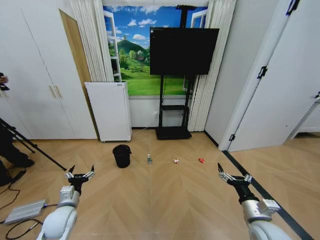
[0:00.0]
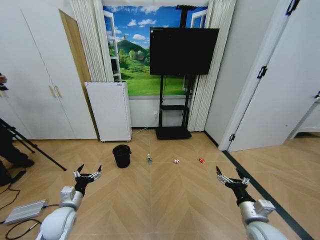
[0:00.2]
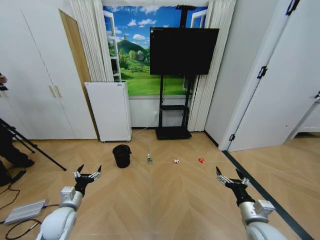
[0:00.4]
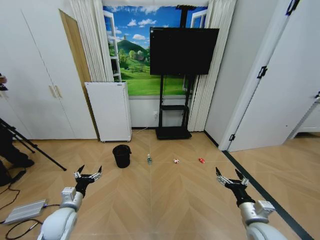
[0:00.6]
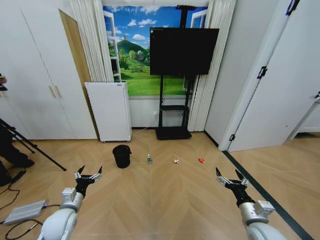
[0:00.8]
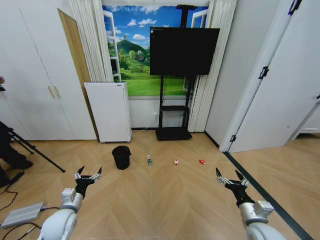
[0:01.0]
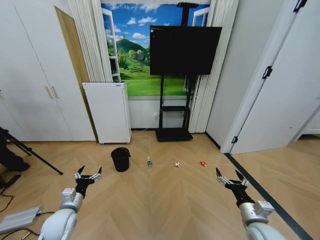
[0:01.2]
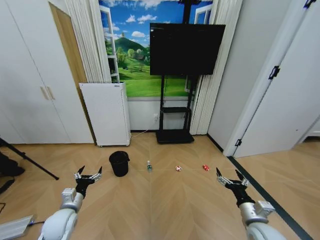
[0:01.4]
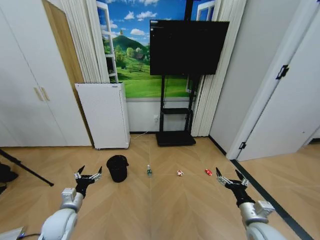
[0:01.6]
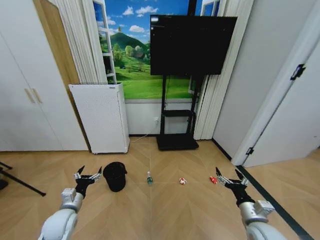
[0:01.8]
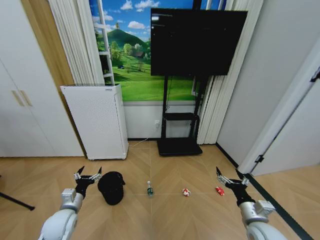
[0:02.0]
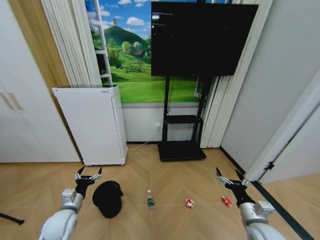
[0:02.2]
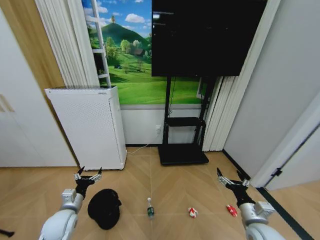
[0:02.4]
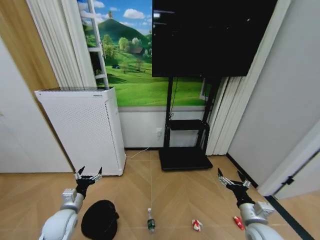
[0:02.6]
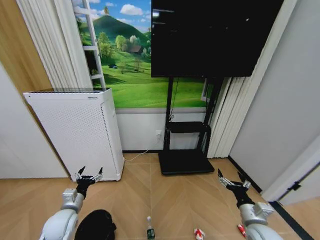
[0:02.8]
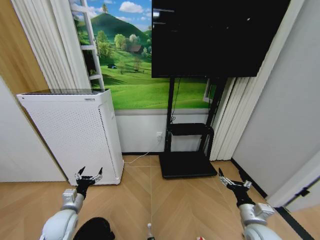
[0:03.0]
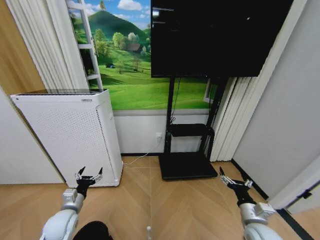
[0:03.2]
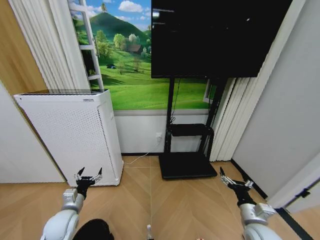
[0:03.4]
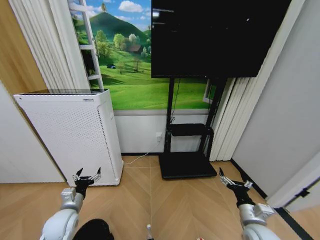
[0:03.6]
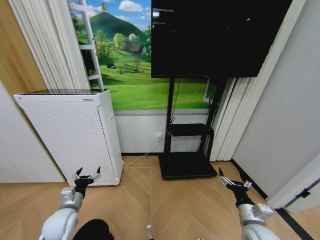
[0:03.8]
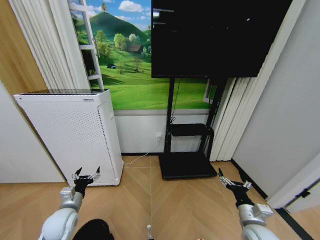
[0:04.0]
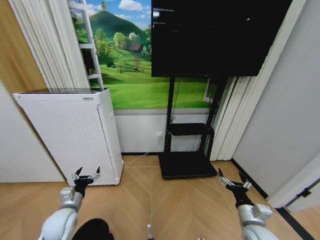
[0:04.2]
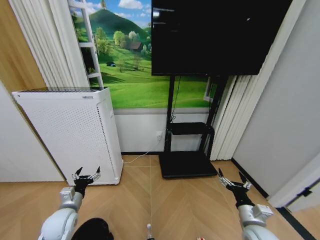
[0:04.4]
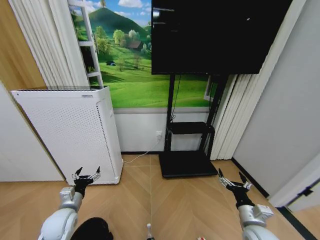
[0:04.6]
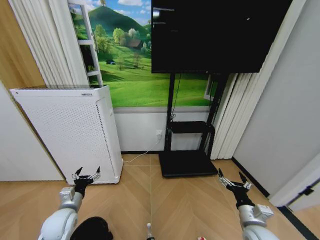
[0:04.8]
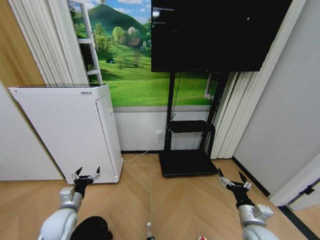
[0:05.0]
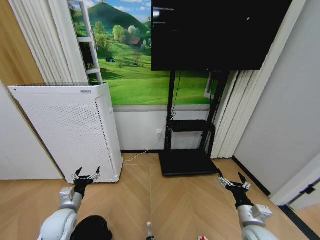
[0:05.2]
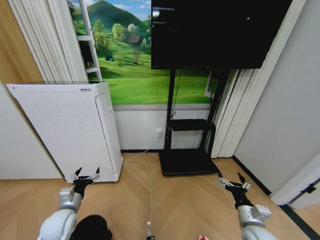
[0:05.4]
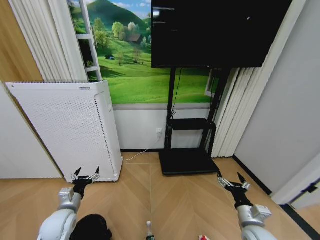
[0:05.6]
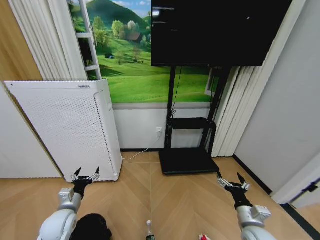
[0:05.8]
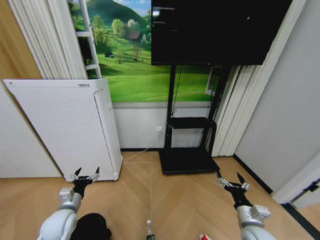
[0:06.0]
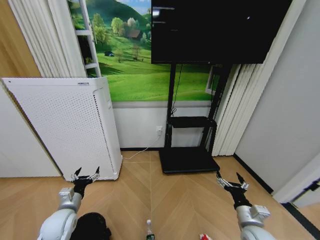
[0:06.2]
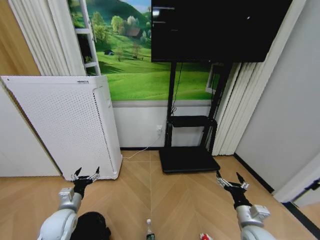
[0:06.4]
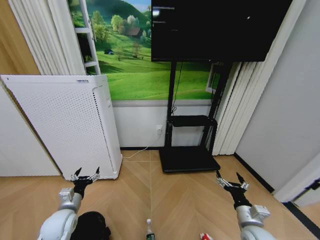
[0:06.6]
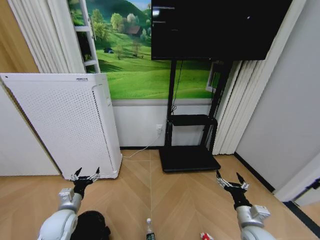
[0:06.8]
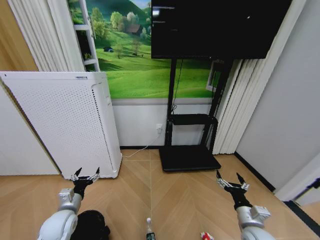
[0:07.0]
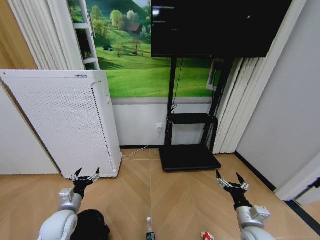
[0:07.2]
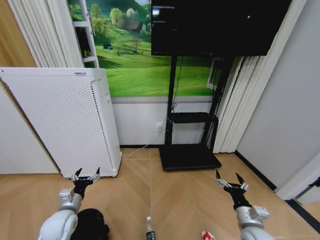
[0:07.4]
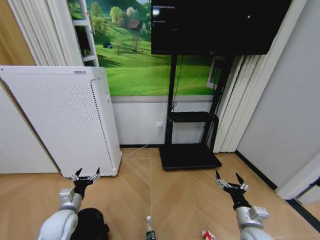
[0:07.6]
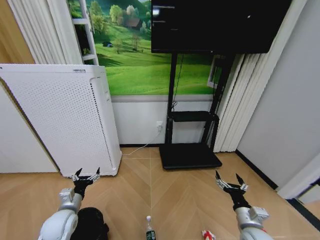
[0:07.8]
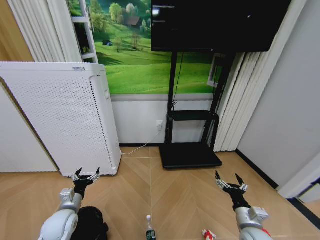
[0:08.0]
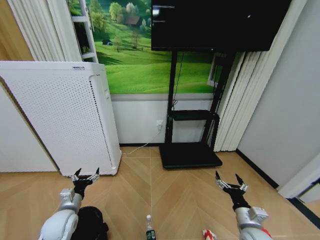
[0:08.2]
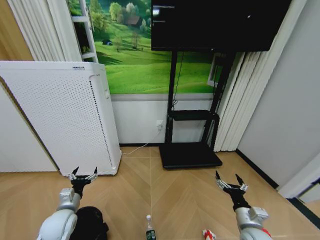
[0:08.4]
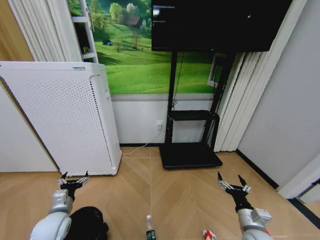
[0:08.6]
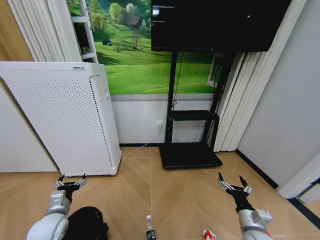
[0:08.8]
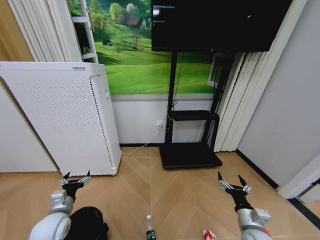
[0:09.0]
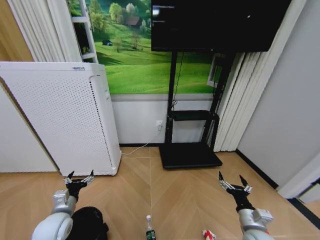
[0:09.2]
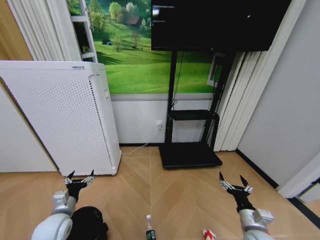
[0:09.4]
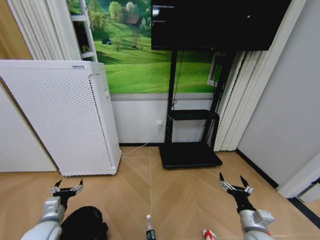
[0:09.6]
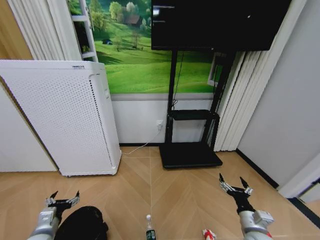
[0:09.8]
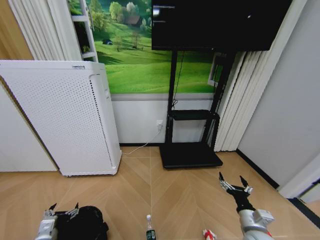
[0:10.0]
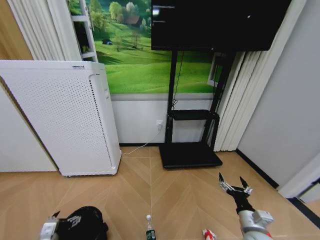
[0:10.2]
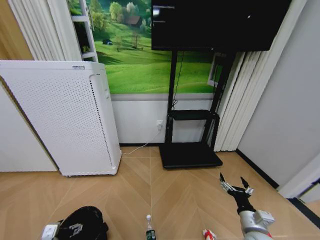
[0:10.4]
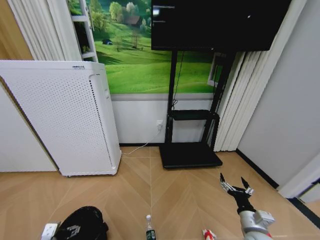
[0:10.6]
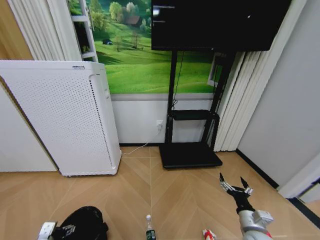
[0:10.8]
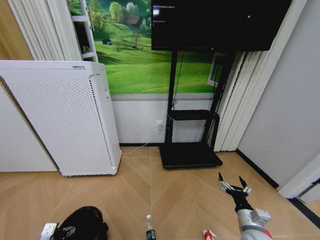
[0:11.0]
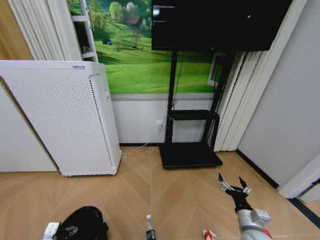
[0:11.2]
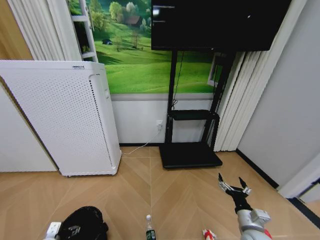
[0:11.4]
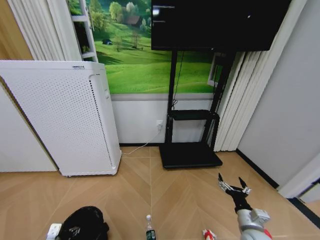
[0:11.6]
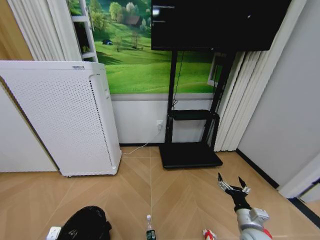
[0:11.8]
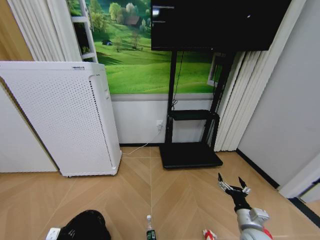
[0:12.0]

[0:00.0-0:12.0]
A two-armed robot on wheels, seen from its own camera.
Task of the whole recording: Pick up the trash bin and place the garbage on the floor into it.
0:03.0 to 0:04.4: There are only small adjustments of the grippers.
0:04.4 to 0:07.6: Both grippers stay put.
0:07.6 to 0:09.0: The grippers make only small movements.
0:09.0 to 0:10.4: The left gripper shifts about 10 cm backward.
0:10.4 to 0:12.0: The left gripper heads downward, covering roughly 5 cm, and closes.

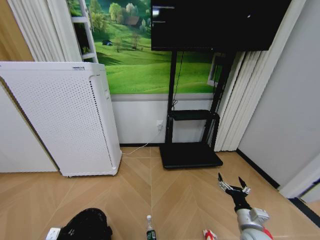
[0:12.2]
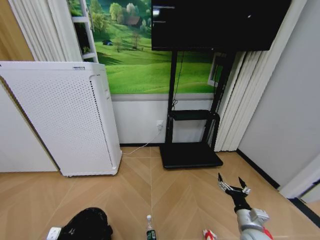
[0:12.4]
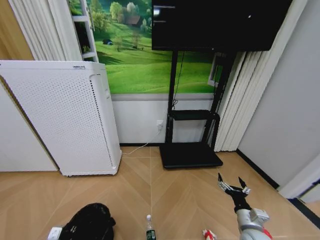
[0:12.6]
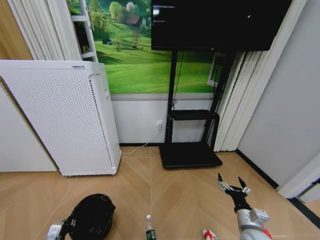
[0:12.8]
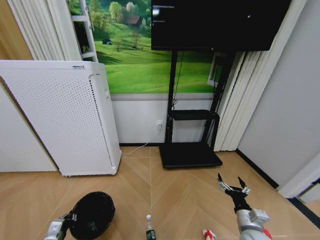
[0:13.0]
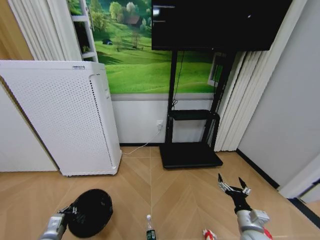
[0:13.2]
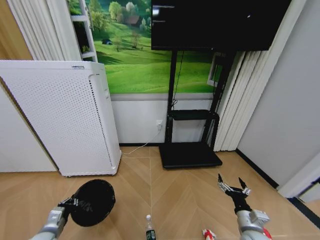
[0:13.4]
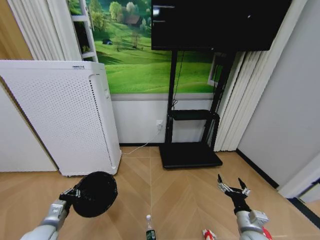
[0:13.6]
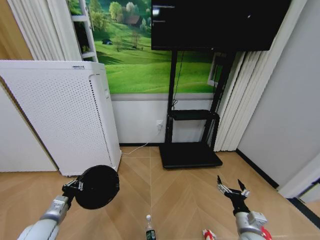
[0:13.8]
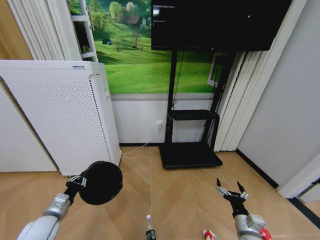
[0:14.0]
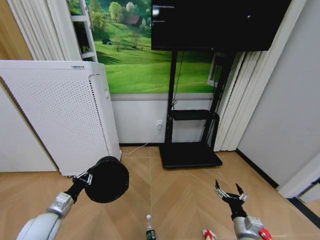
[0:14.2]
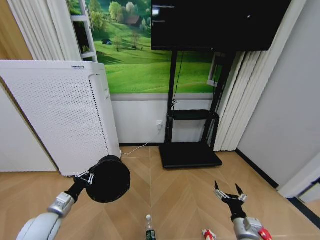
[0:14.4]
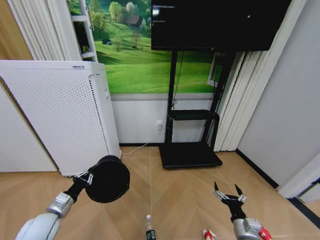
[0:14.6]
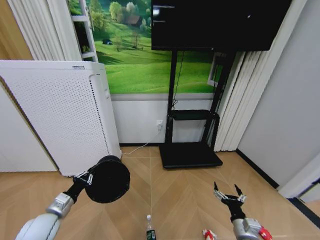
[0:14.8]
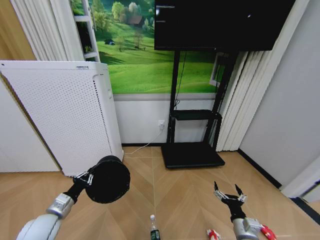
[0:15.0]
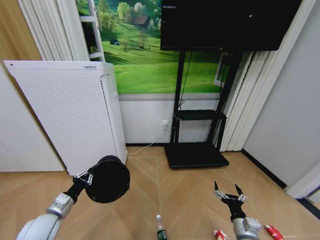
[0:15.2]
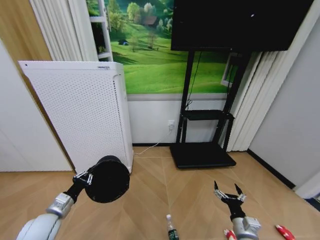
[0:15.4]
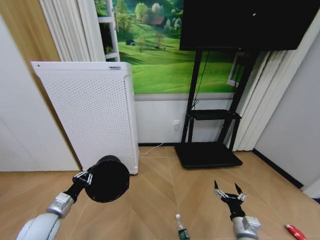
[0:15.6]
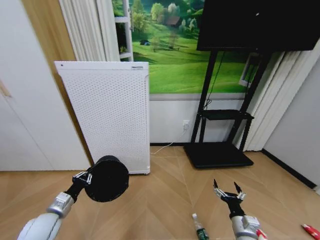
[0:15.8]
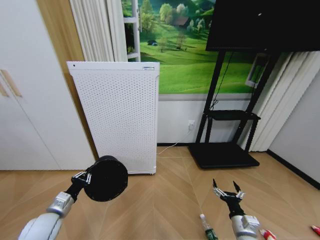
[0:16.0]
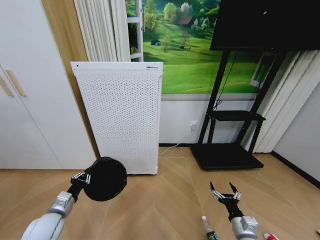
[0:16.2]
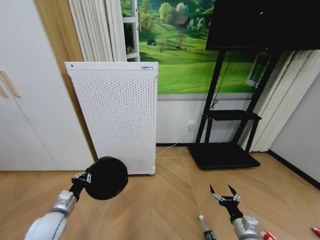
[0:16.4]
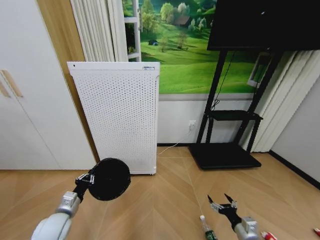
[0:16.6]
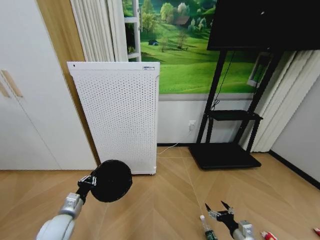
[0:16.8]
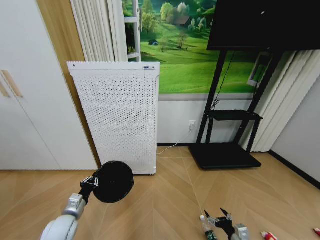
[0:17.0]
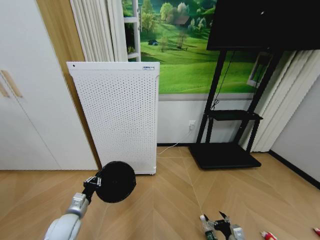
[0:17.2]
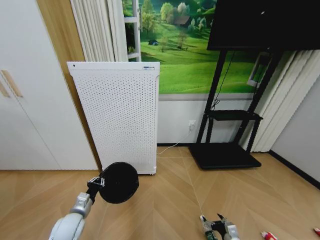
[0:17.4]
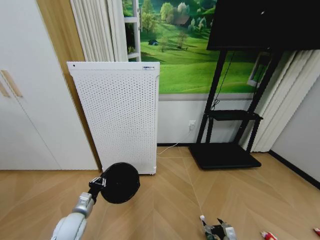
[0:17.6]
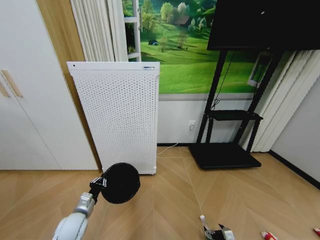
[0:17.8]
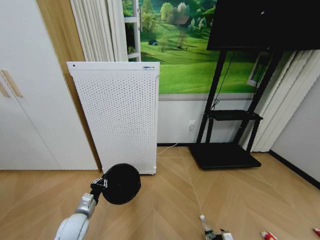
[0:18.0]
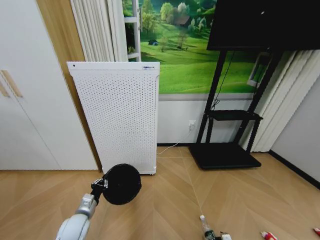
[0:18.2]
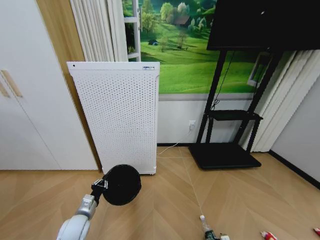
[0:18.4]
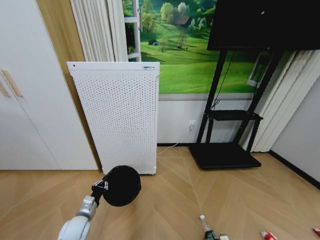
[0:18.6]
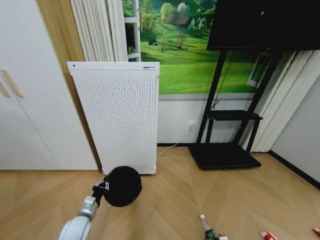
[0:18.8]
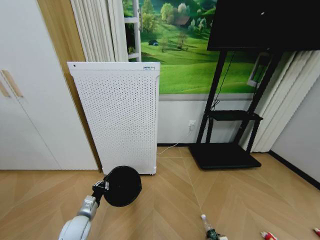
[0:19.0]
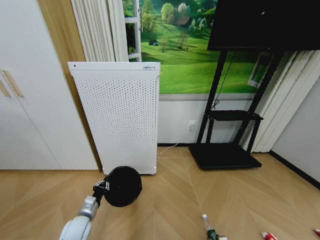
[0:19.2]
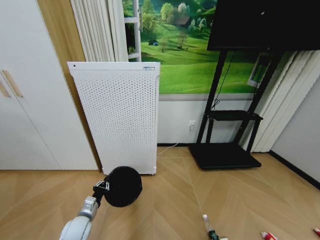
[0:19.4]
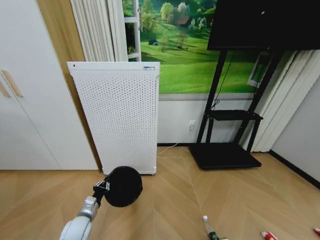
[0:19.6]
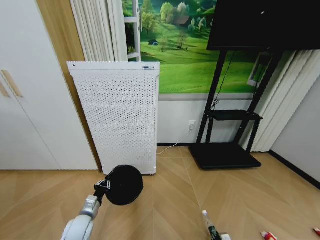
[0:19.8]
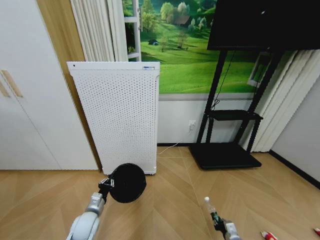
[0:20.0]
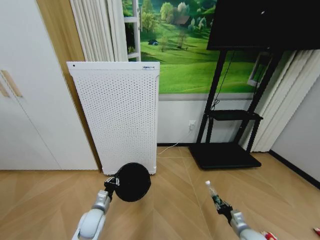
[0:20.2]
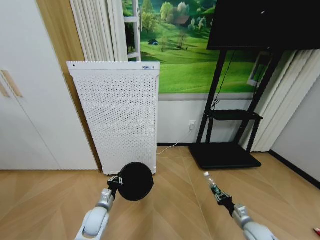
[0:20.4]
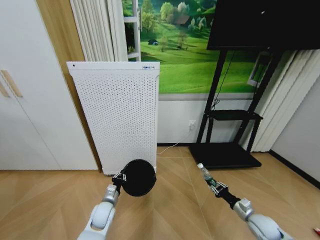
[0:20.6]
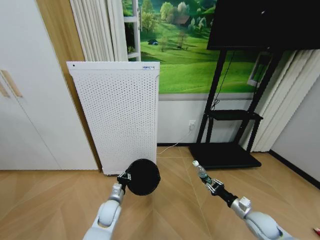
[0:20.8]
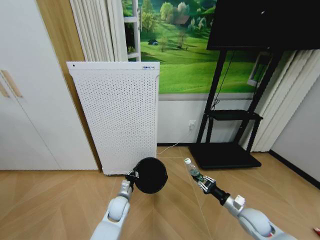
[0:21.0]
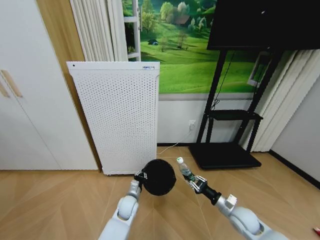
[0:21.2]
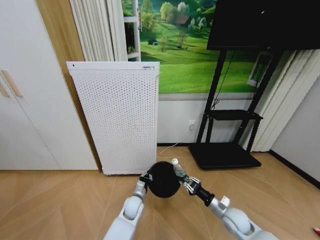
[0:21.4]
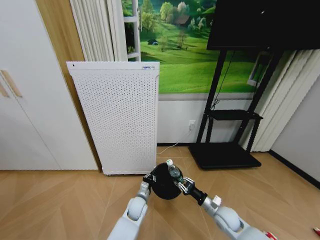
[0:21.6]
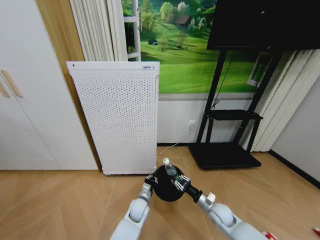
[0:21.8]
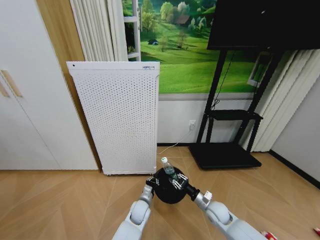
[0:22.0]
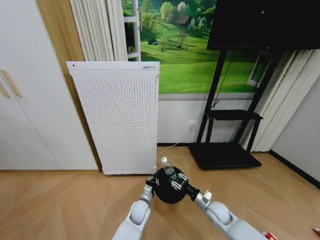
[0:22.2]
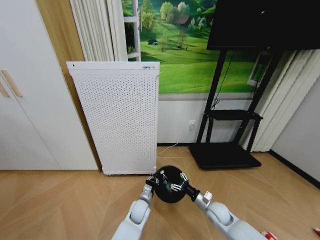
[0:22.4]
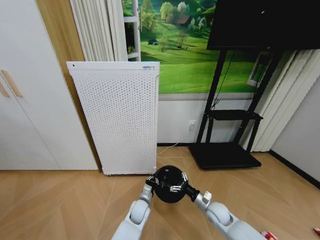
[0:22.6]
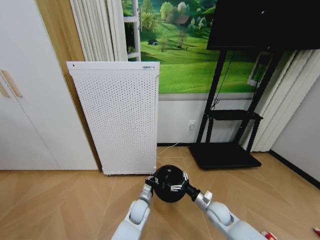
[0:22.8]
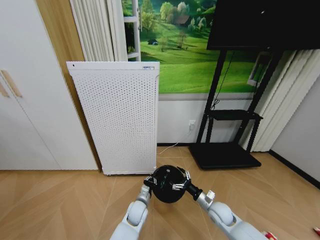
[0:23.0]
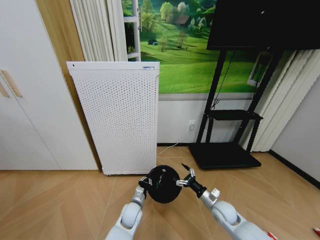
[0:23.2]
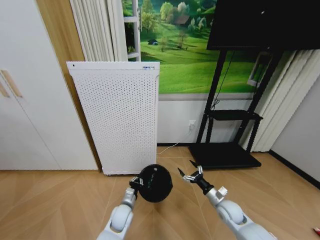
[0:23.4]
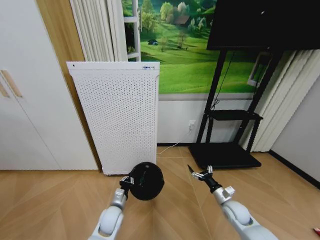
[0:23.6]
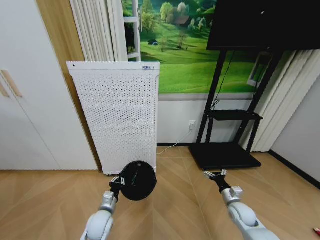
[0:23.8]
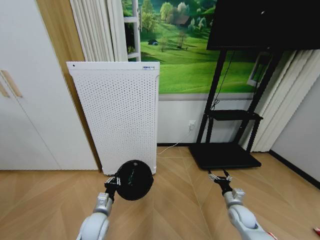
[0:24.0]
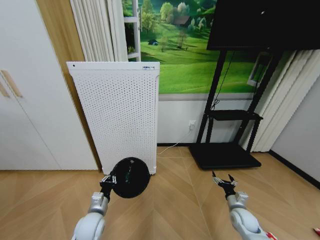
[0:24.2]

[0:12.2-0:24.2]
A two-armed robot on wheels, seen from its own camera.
Task of the whole recording: Pick up the trash bin and place the garbage on the floor into it.
0:12.2 to 0:13.8: The left gripper shifts about 10 cm upward and forward.
0:16.6 to 0:18.2: The right gripper travels downward by roughly 15 cm; the left gripper ends up about 5 cm from where it was.
0:19.8 to 0:21.2: The right gripper moves upward and forward, approximately 20 cm, while the left gripper moves to the right and forward, about 20 cm.
0:21.2 to 0:22.6: The left gripper shifts approximately 5 cm to the right. The right gripper shifts approximately 10 cm to the left, and opens.
0:22.6 to 0:24.2: The left gripper travels to the left, backward and upward by some 20 cm. The right gripper is displaced to the right by approximately 10 cm.
